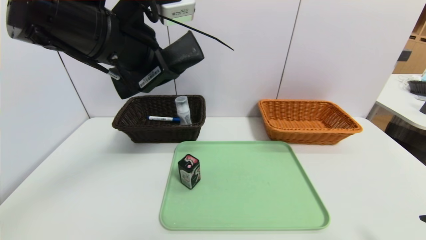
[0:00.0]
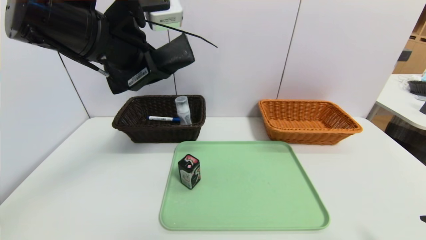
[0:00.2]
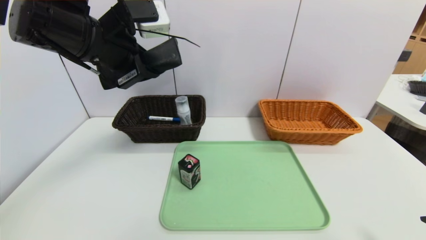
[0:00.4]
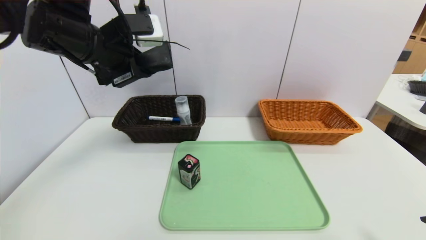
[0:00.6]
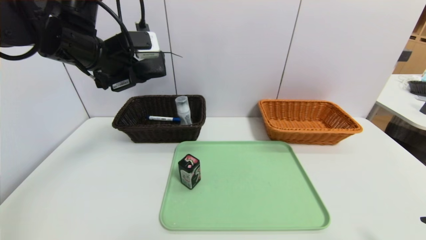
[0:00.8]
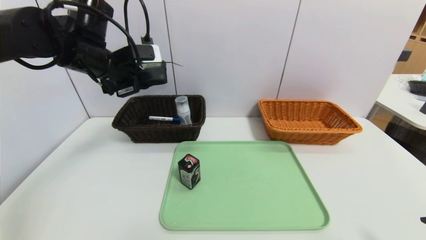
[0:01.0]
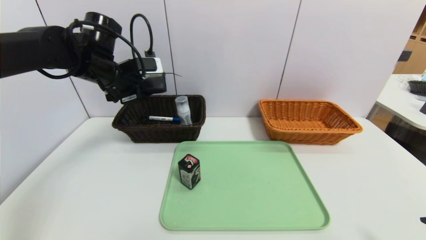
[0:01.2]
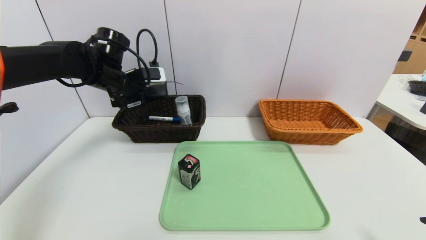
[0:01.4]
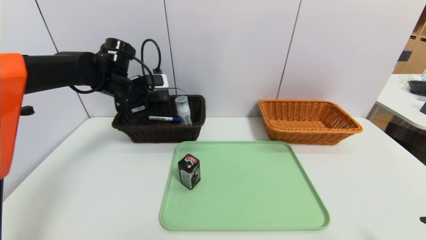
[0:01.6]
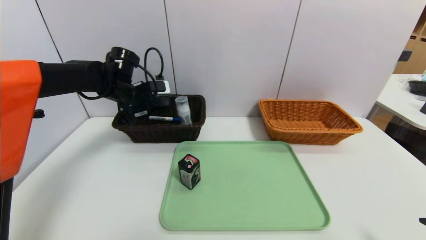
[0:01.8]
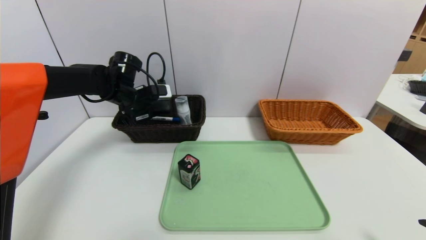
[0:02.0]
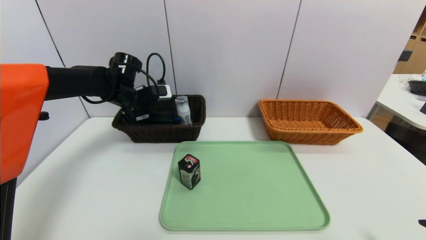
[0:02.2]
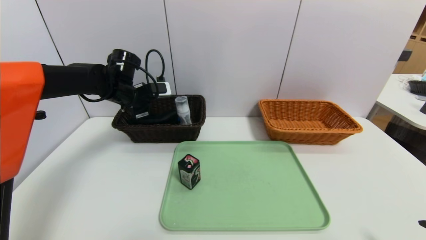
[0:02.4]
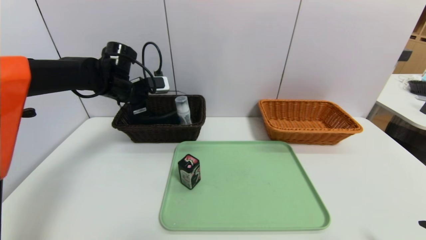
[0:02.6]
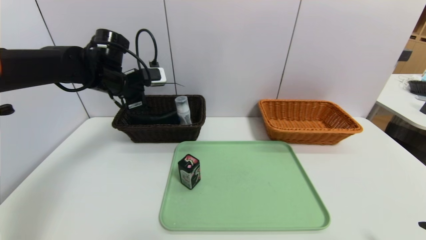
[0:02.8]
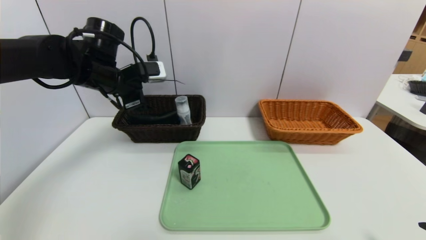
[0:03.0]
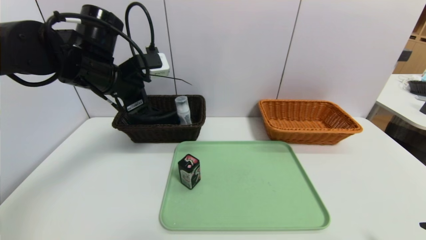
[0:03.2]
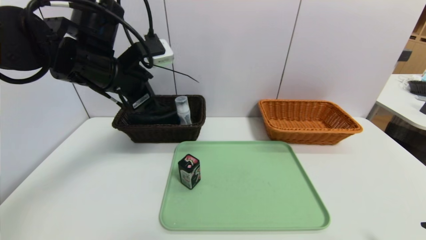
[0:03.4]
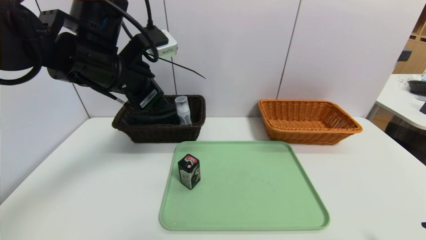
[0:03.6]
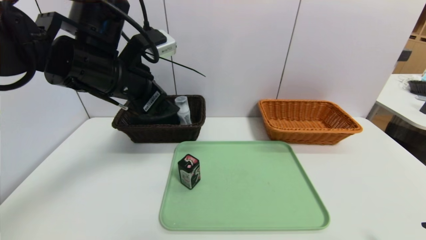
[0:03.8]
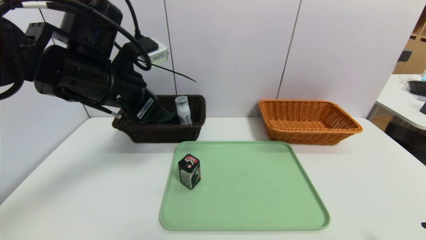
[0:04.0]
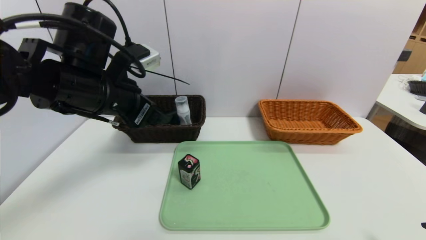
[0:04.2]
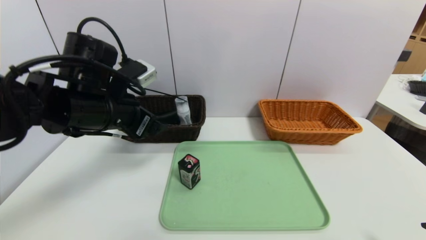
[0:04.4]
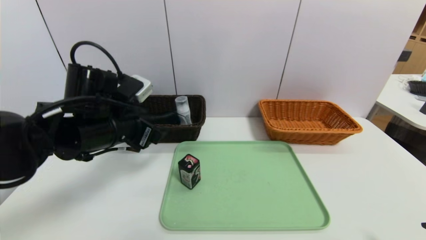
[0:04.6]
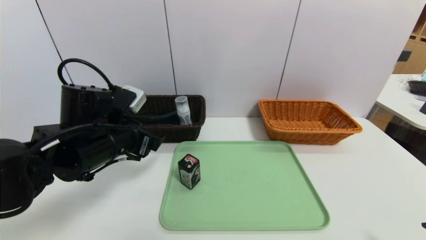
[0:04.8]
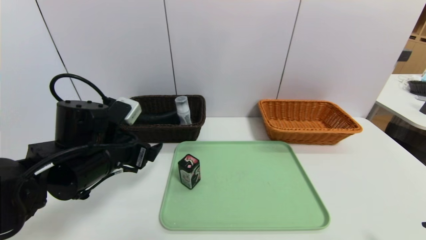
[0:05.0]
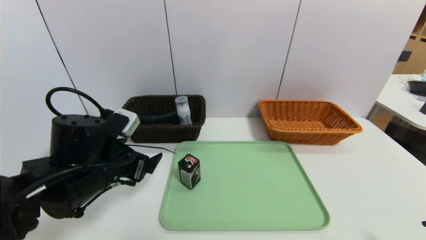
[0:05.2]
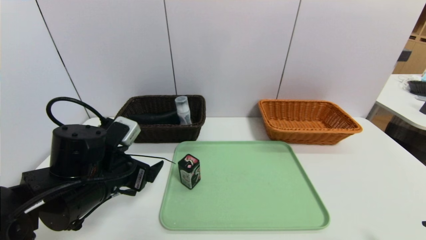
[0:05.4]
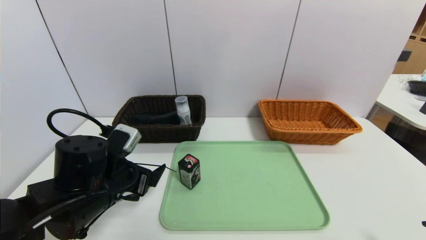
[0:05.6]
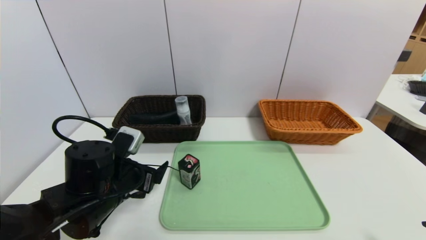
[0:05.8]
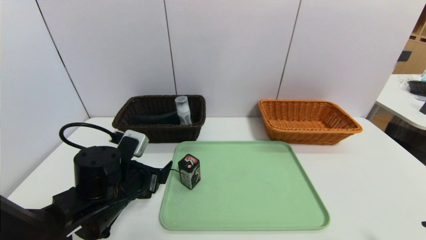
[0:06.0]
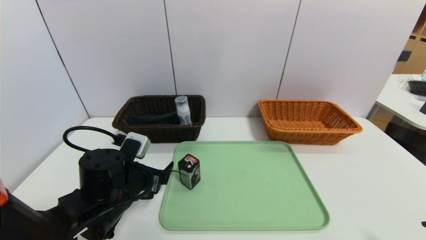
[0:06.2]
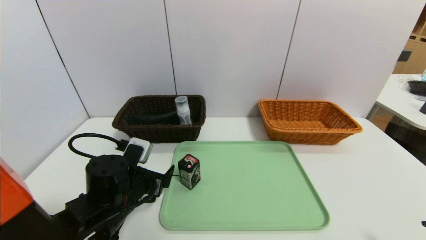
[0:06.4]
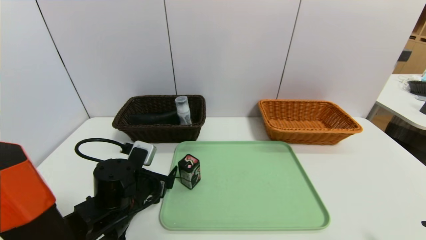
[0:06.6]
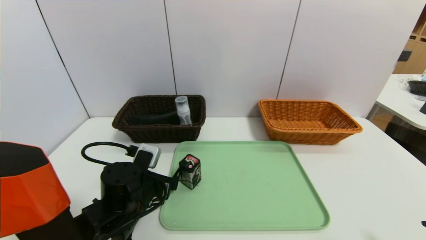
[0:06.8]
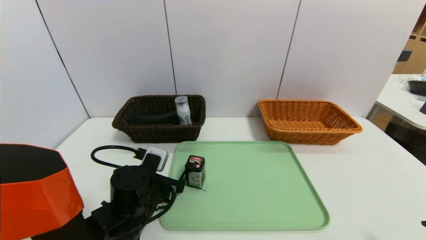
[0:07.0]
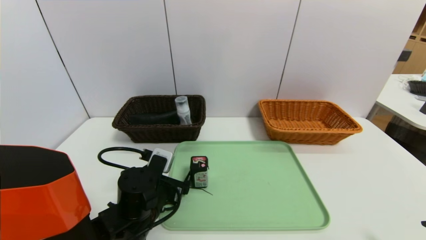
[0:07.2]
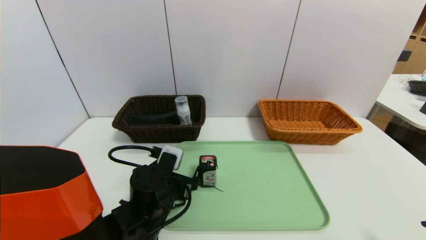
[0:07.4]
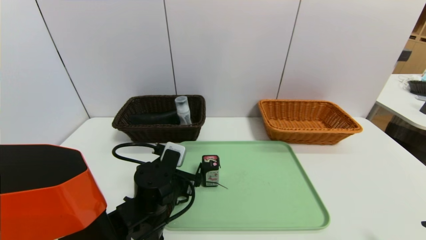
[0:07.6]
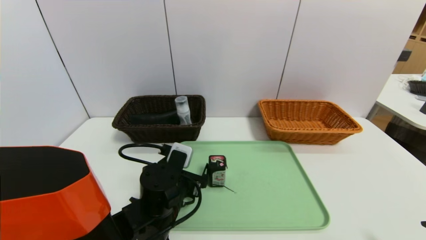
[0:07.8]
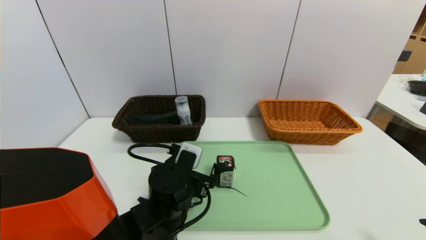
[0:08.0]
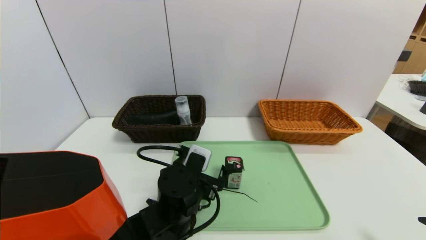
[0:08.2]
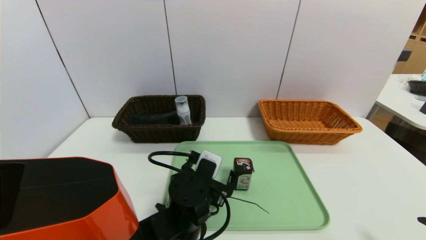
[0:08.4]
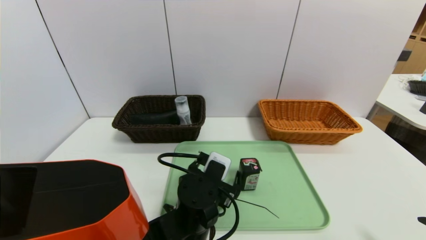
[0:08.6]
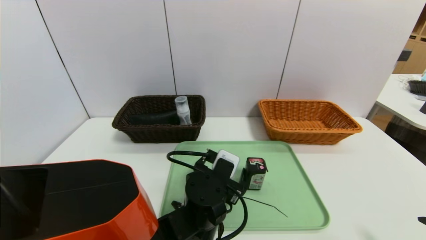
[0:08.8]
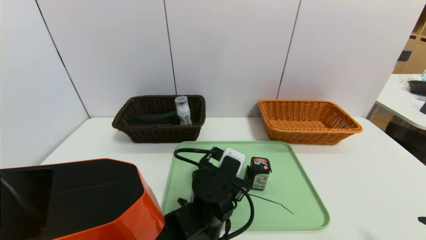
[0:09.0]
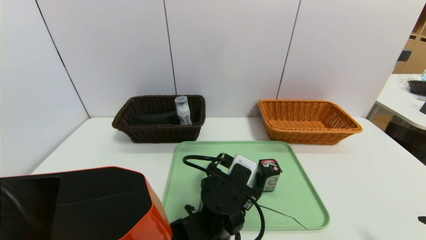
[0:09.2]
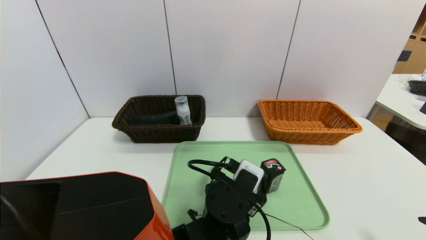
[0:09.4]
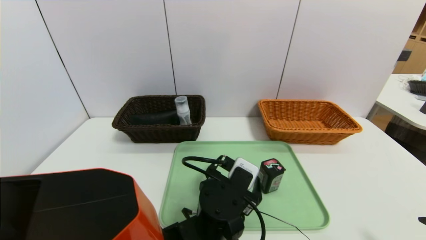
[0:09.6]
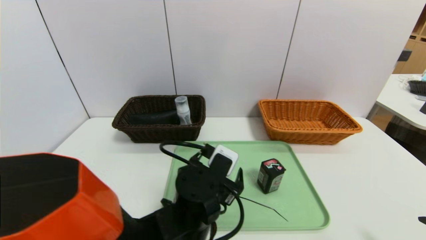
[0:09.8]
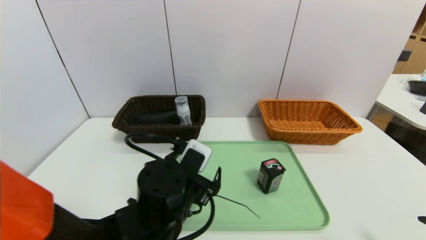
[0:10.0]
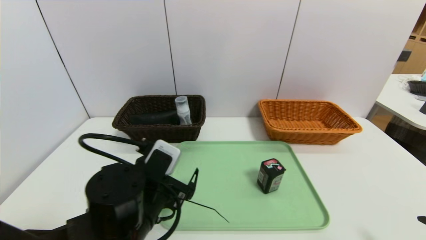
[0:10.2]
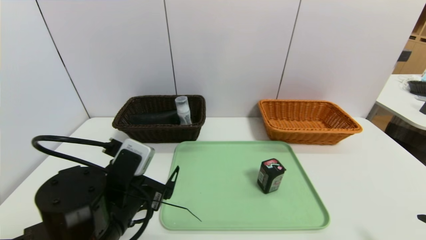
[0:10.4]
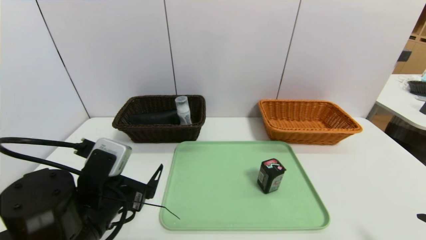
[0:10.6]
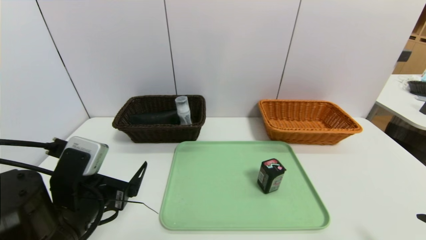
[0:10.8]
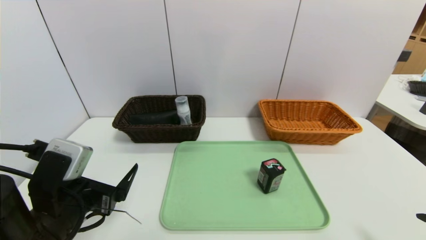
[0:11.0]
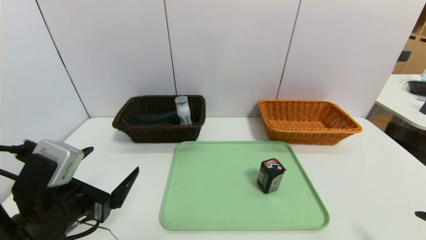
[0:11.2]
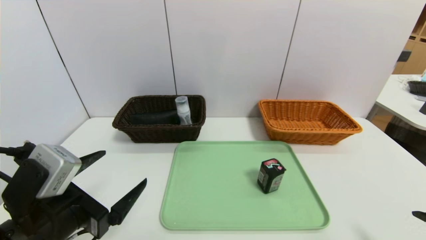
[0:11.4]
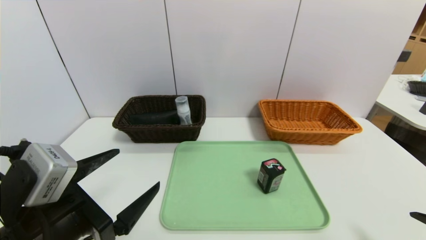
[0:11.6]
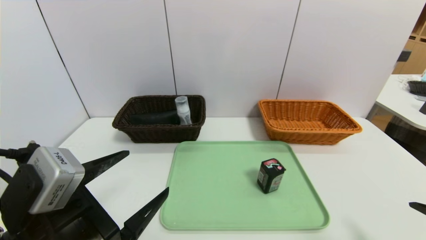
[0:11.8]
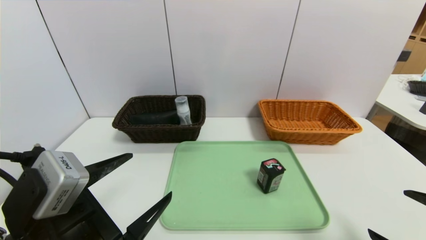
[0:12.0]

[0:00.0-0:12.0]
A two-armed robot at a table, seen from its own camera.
Task of the whole recording: place the food in the right basket with the right gripper, and place the non food items in the left basket with the left gripper.
Step, 0.0 to 2.4 s: Grasp the glasses case and put it in the left basket.
0.0 to 1.6 s: The left gripper travels forward, downward and to the left by approximately 25 cm.
1.6 to 3.0 s: The left gripper moves backward, about 5 cm, and opens.
3.0 to 4.4 s: The left gripper travels backward by some 10 cm.
4.4 to 6.0 s: The left gripper is displaced downward by roughly 15 cm.
6.0 to 7.6 s: The left gripper is displaced to the right by about 10 cm.
7.6 to 9.0 s: The left gripper is displaced to the right by roughly 10 cm.
9.0 to 10.4 s: The left gripper moves to the left, approximately 15 cm.
10.4 to 12.0 s: The left gripper is displaced backward by roughly 5 cm.

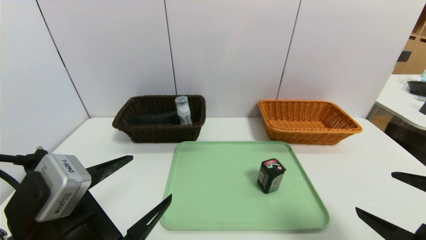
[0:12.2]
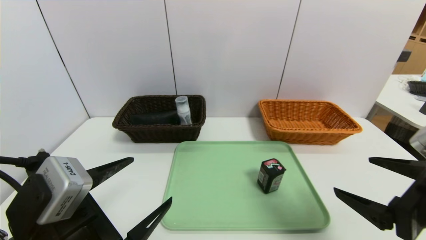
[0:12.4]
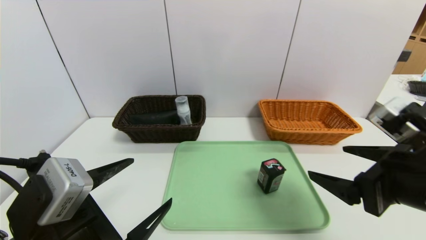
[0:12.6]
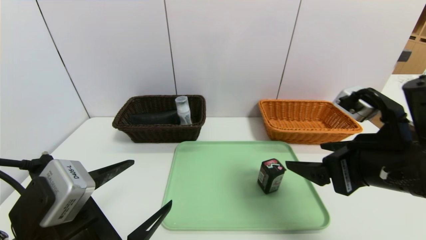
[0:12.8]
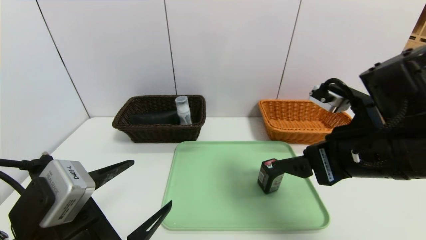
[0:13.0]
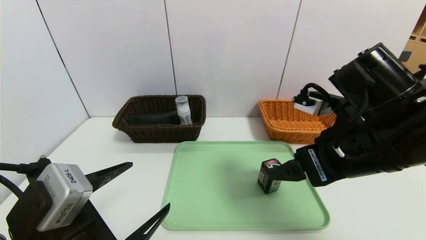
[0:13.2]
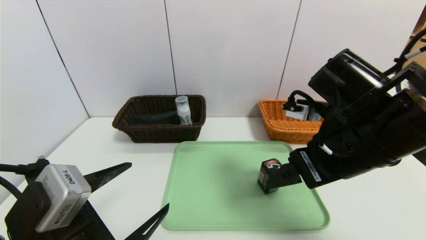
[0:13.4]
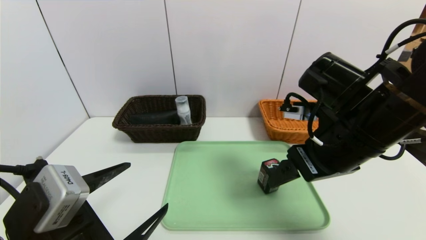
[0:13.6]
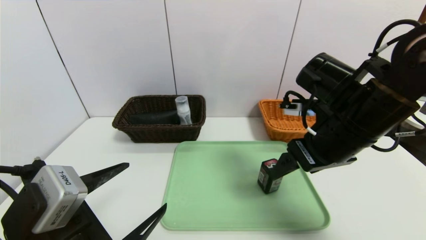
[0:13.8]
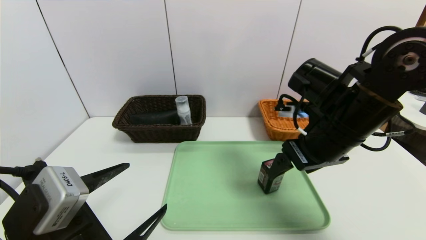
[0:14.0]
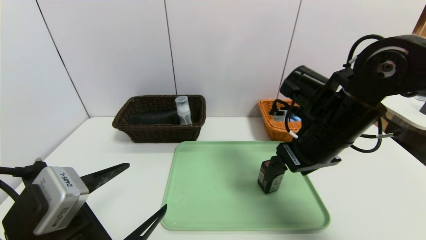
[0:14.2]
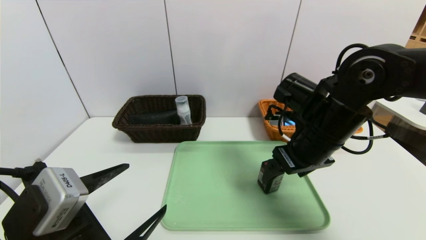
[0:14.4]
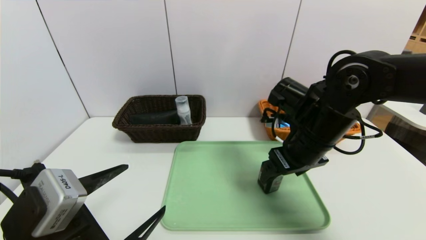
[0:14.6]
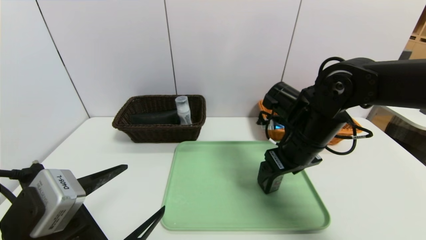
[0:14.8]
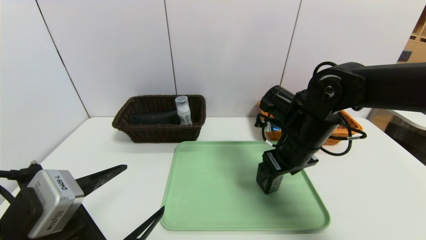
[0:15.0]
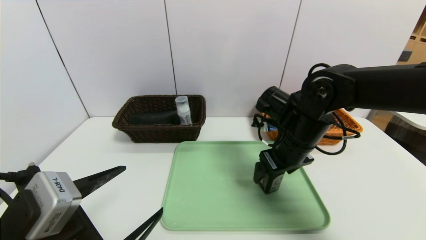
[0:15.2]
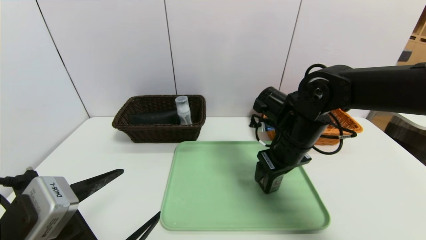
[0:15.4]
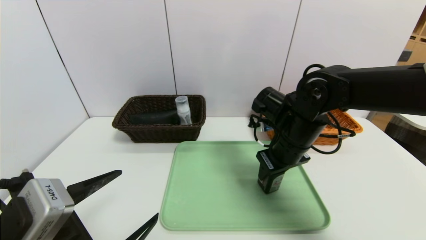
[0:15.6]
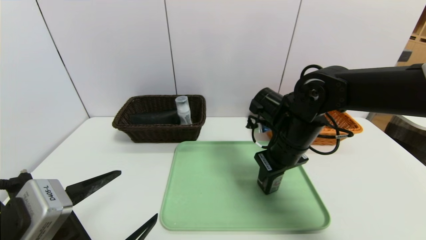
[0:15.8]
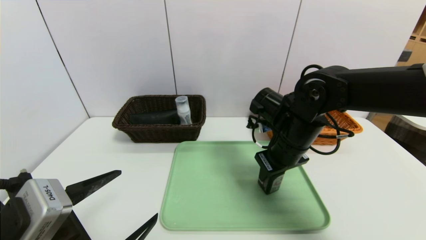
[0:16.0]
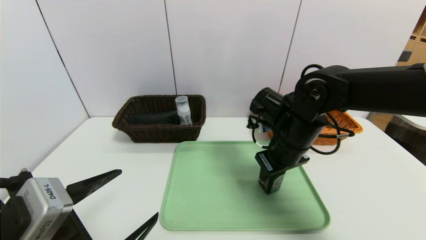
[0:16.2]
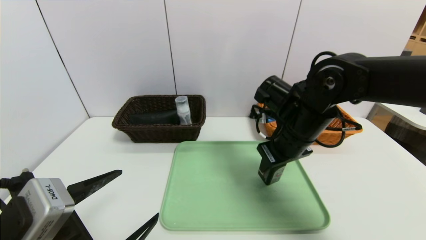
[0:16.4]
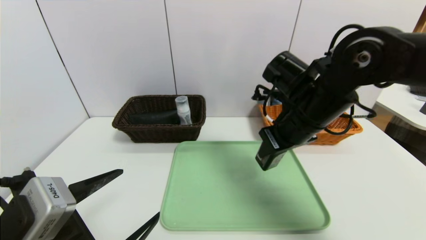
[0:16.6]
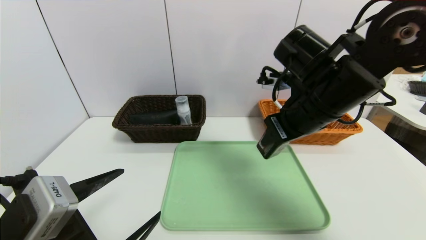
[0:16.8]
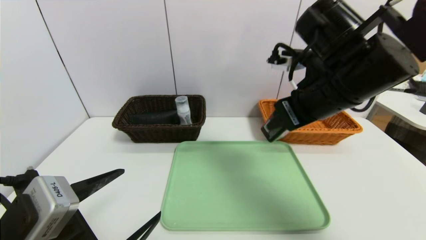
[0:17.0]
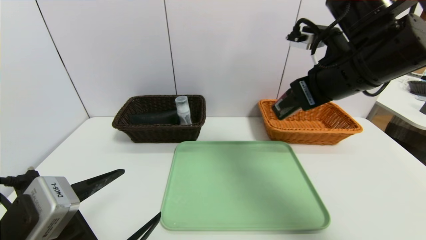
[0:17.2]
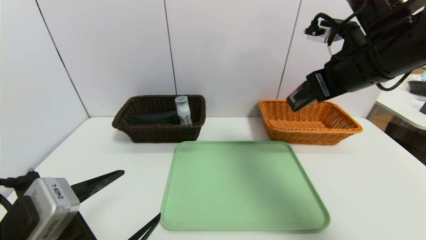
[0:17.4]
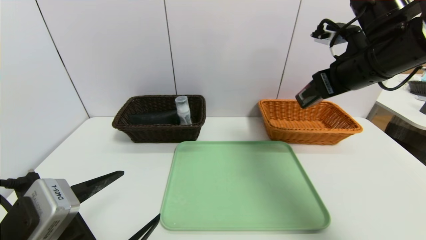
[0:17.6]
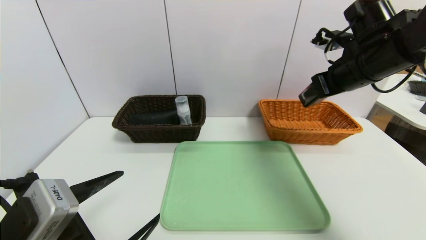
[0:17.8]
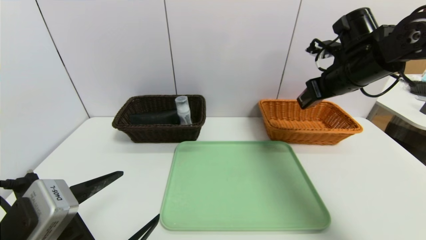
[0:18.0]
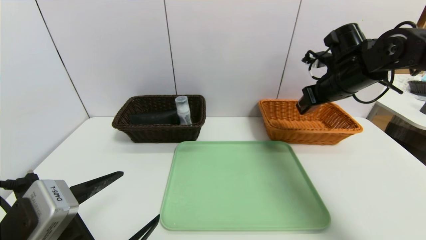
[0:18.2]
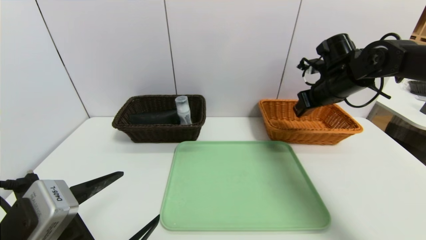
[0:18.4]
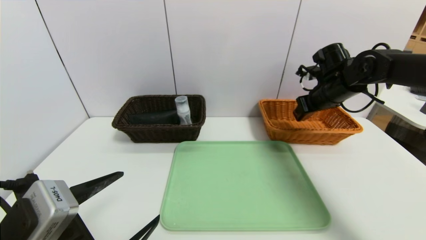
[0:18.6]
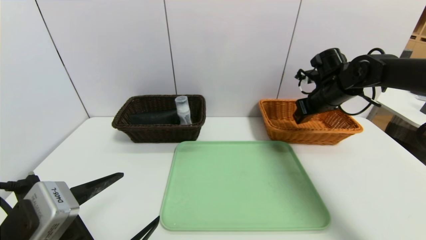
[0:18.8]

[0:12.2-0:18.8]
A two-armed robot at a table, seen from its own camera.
Task of the whole recording: place the food in the right basket with the right gripper, and place the non food items in the left basket with the left gripper.
12.2 to 13.8 s: The right gripper moves forward and to the left, about 20 cm.
13.8 to 15.4 s: The right gripper shifts approximately 10 cm downward and forward, and closes.
15.4 to 17.2 s: The right gripper shifts some 15 cm upward, and closes its fingers.
17.2 to 18.8 s: The right gripper heads forward, downward and to the right, covering approximately 20 cm.
